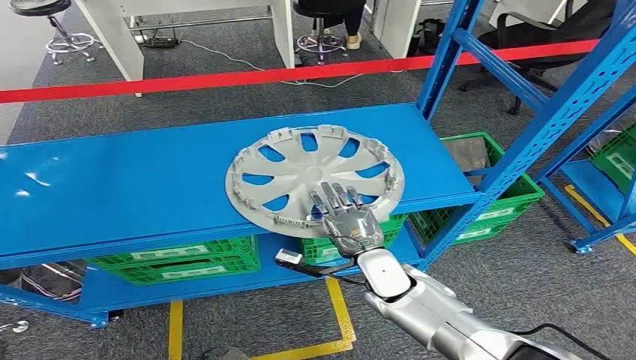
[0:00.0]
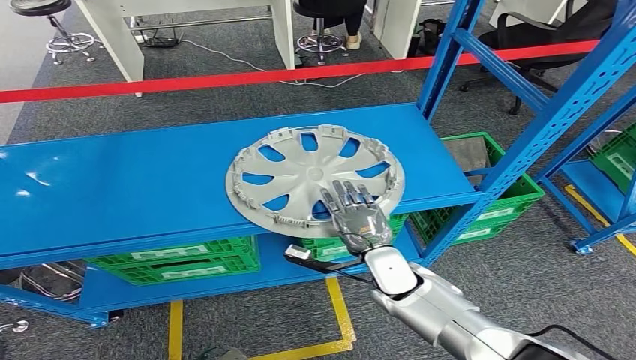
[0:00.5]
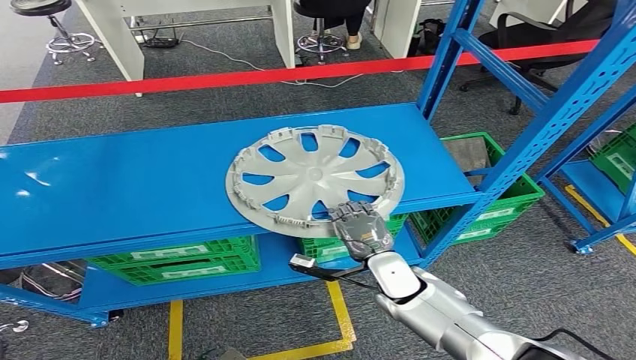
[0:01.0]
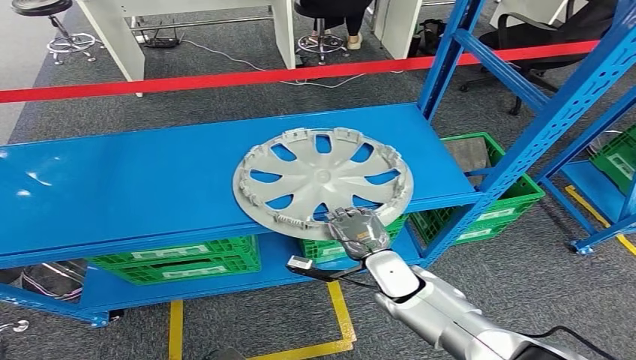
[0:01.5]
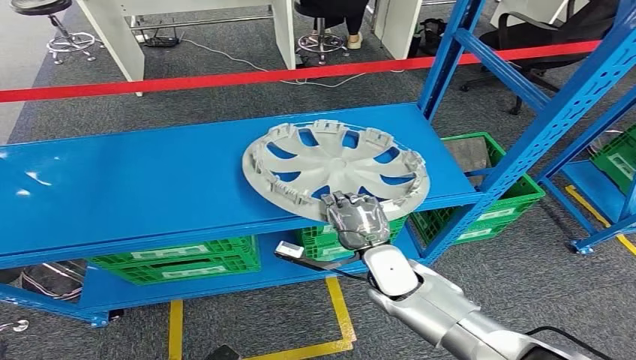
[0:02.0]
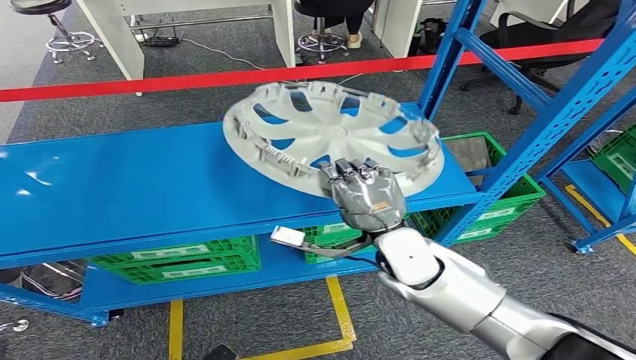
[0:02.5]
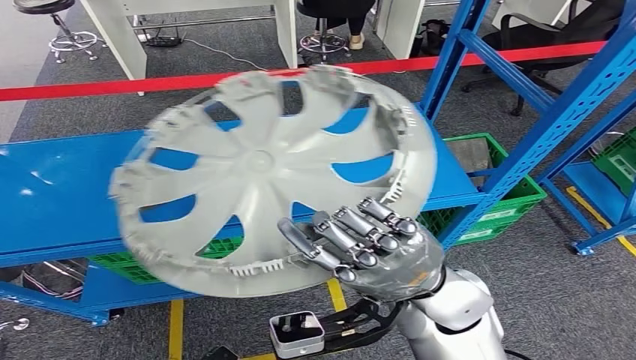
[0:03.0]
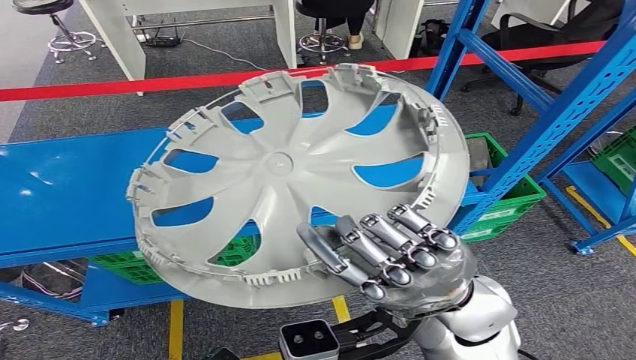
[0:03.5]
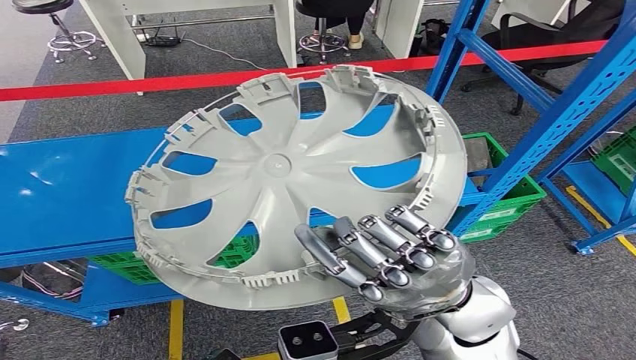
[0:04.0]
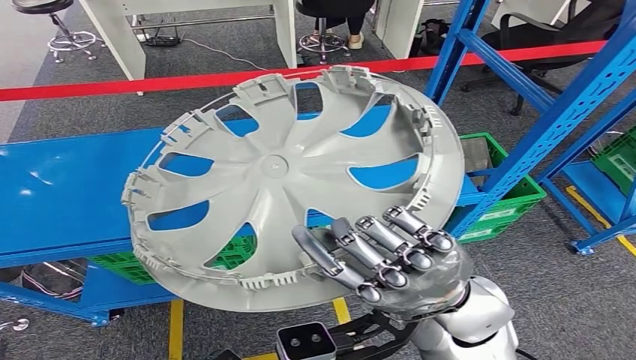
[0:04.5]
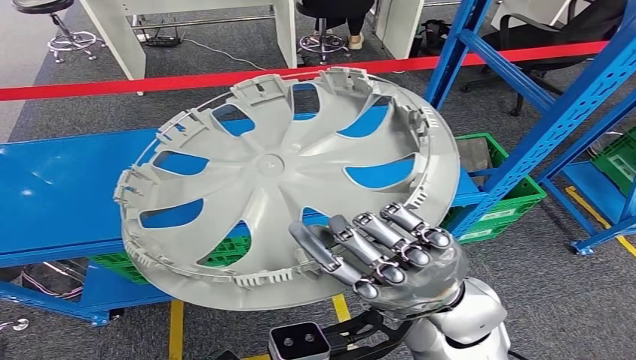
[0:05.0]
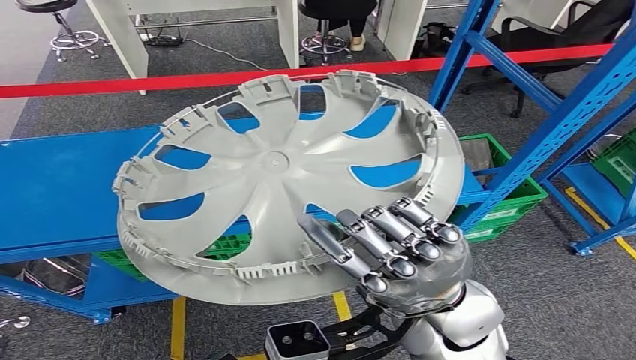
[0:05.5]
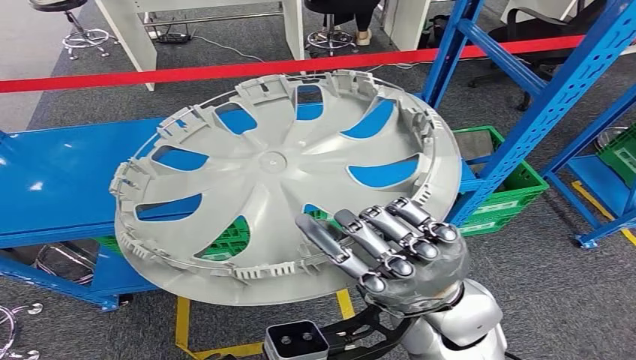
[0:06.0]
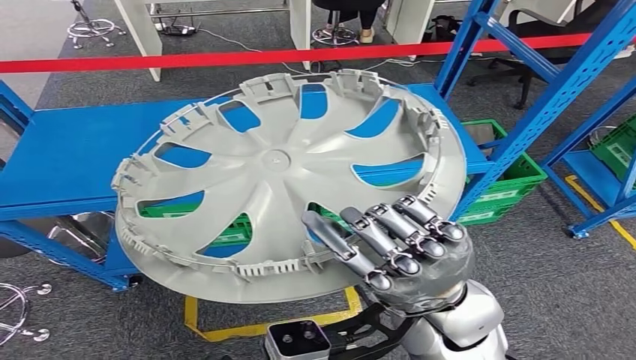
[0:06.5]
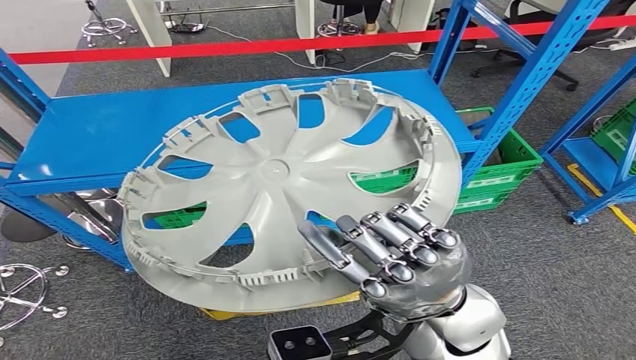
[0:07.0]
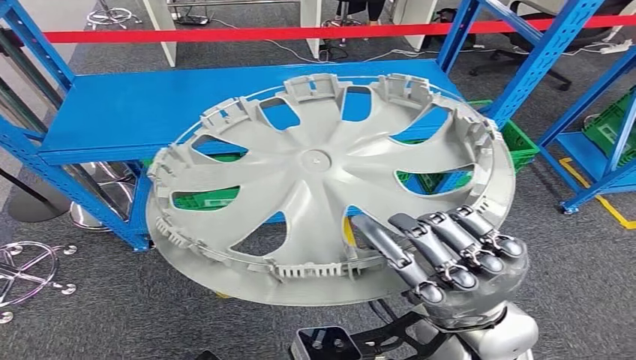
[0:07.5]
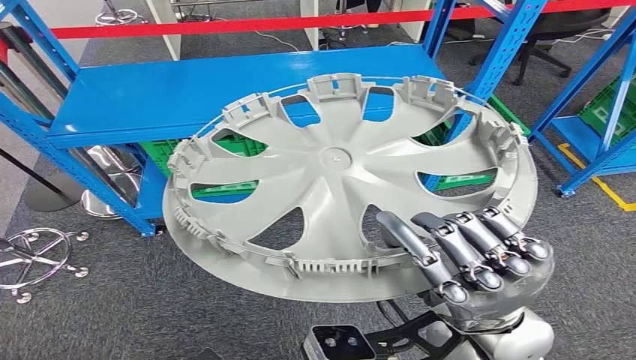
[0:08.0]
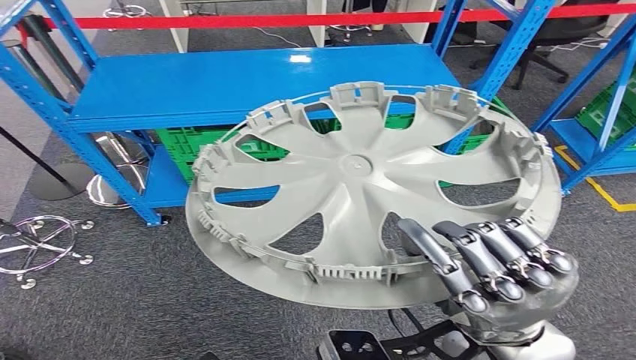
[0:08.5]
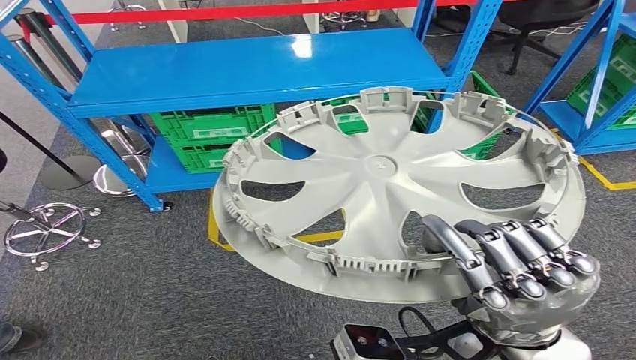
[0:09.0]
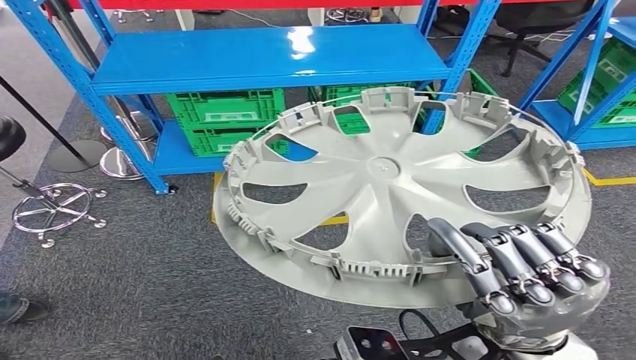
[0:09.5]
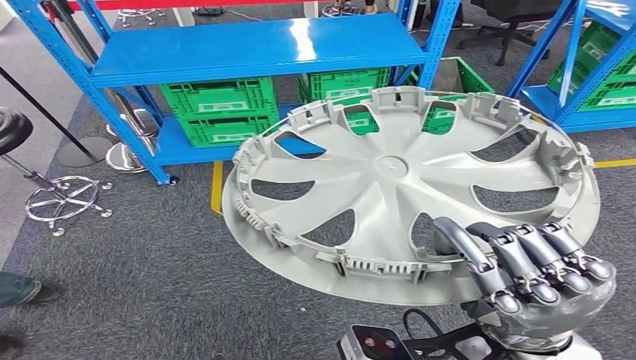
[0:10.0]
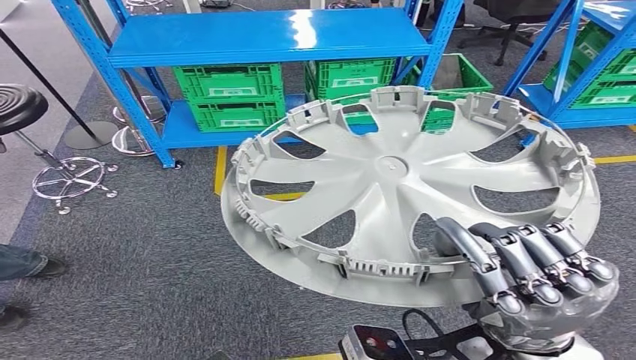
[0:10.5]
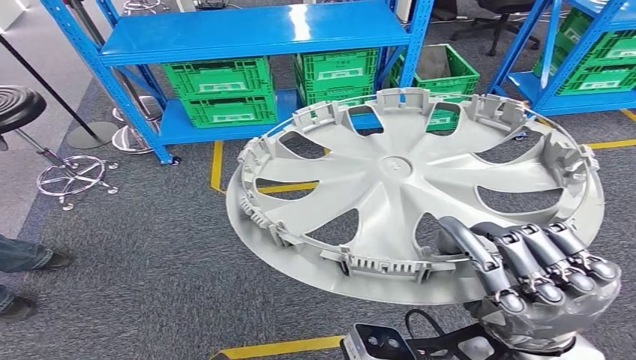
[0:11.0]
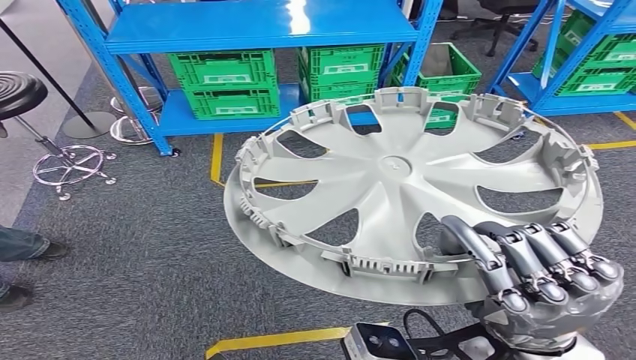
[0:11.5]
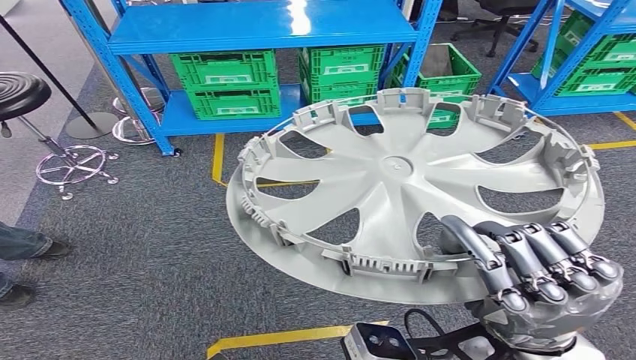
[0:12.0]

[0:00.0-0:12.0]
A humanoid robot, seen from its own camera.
Step, 0:00.0 to 0:03.5: Pick up the small component from the shelf.

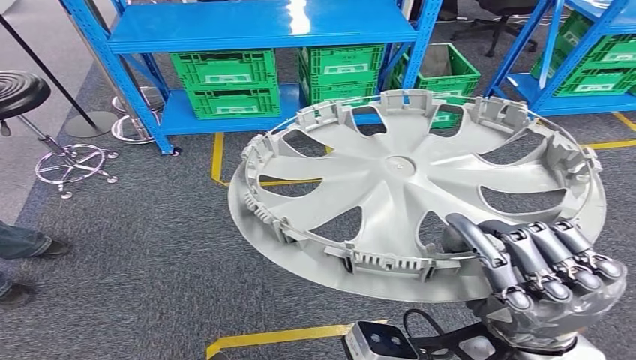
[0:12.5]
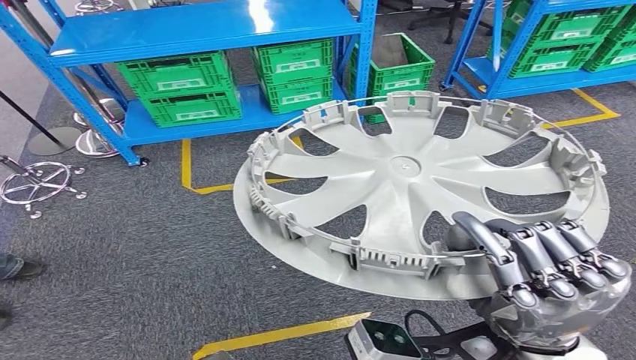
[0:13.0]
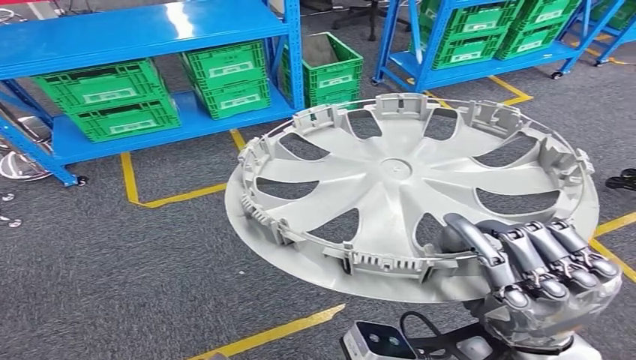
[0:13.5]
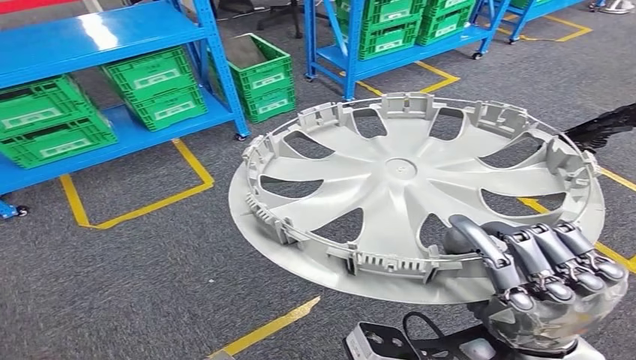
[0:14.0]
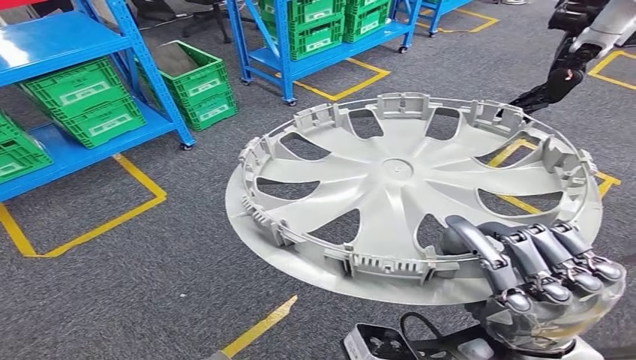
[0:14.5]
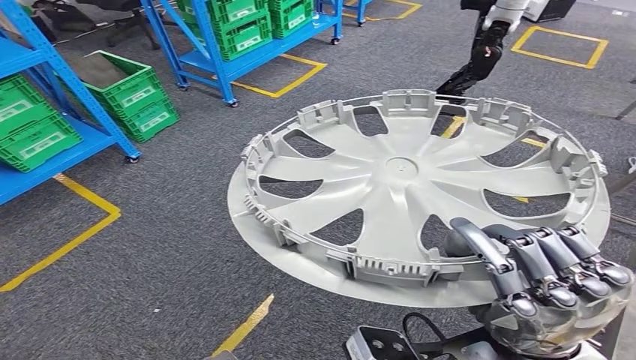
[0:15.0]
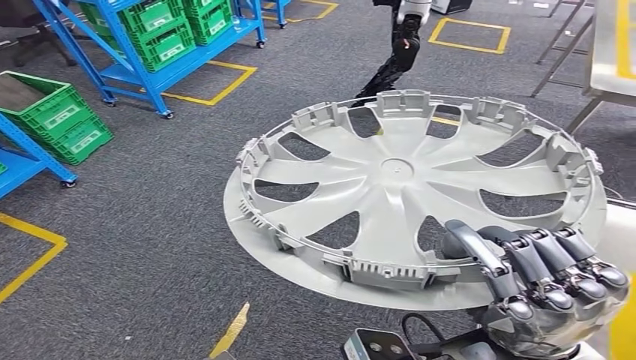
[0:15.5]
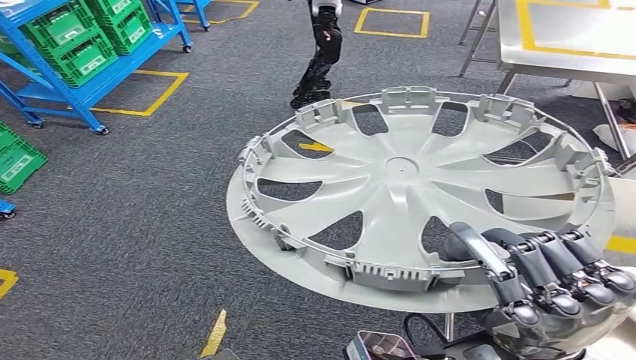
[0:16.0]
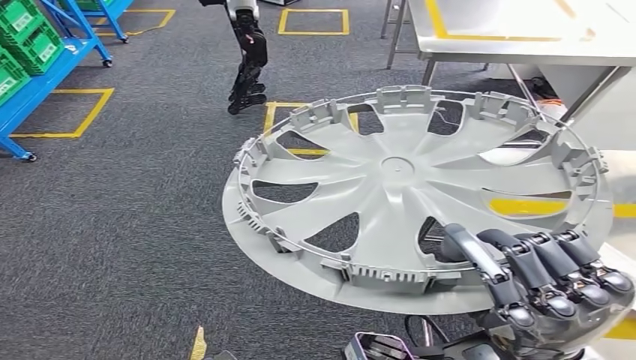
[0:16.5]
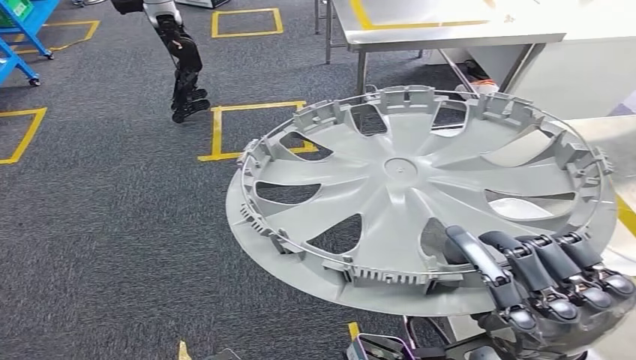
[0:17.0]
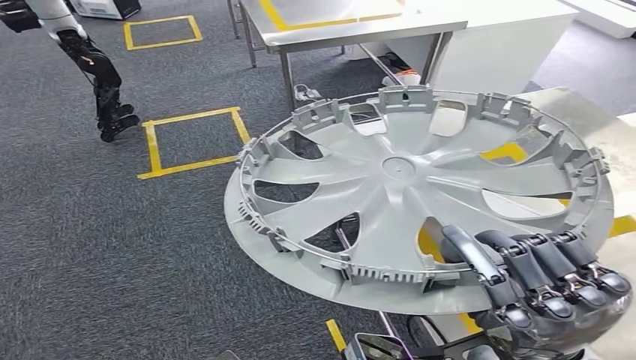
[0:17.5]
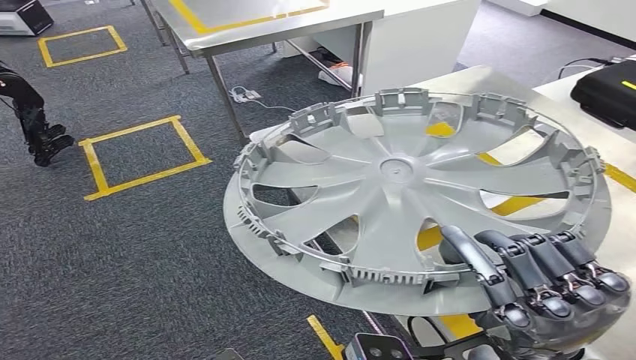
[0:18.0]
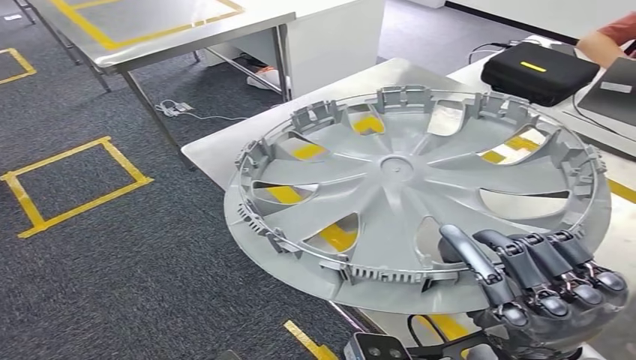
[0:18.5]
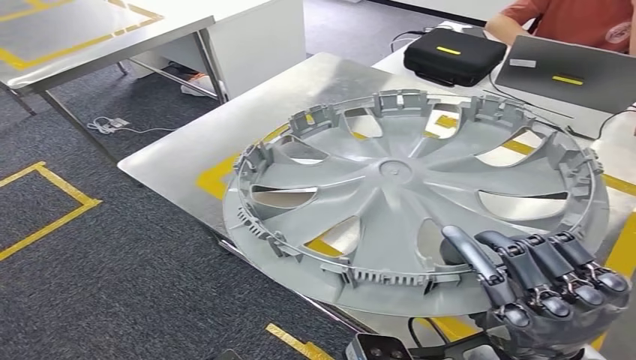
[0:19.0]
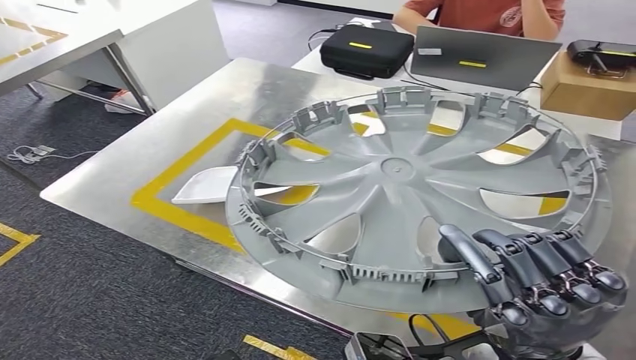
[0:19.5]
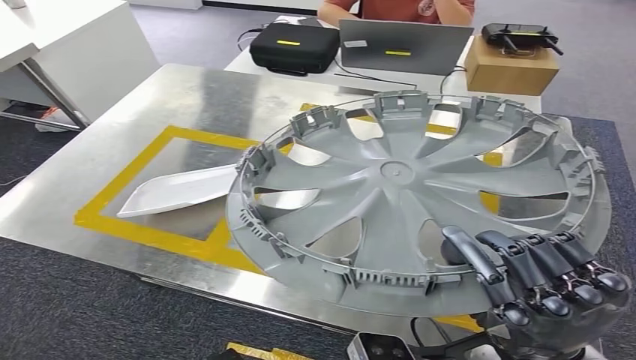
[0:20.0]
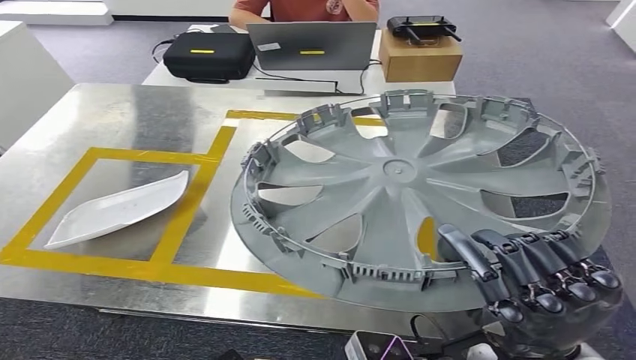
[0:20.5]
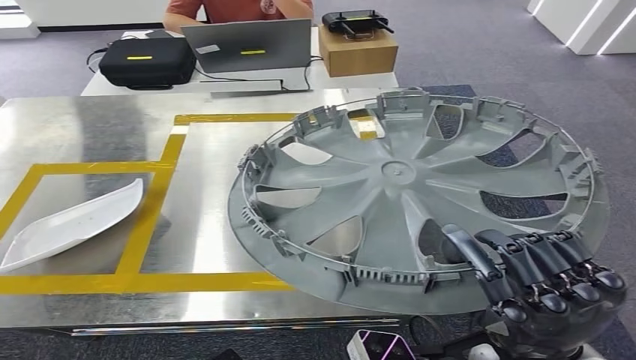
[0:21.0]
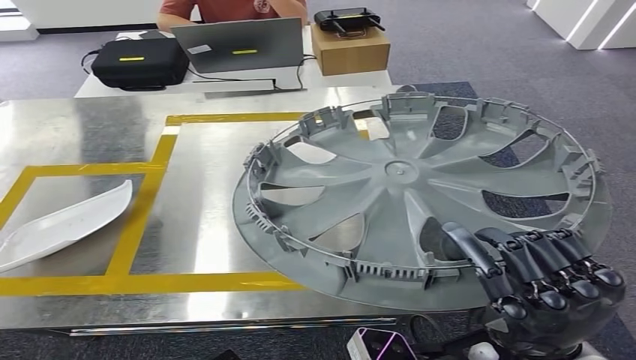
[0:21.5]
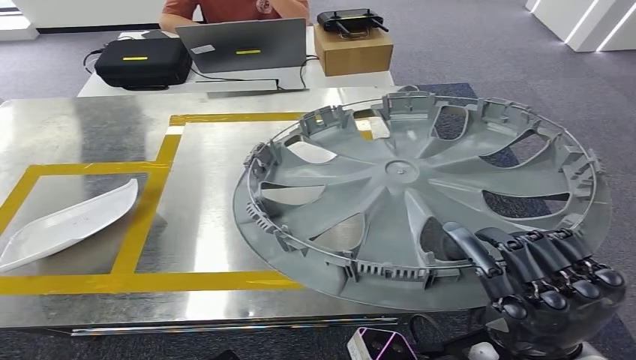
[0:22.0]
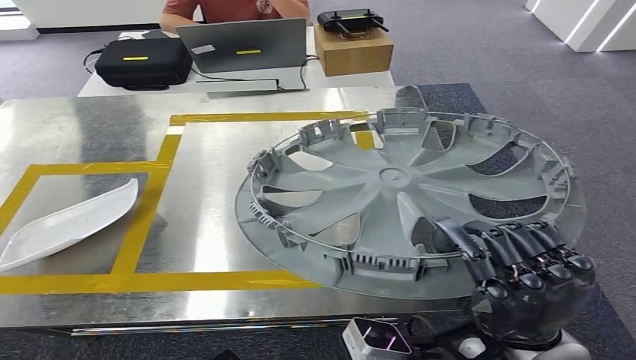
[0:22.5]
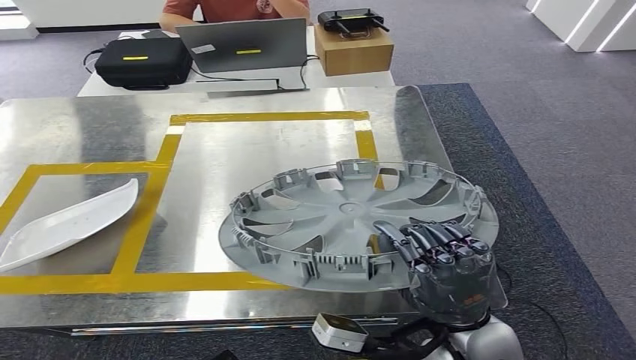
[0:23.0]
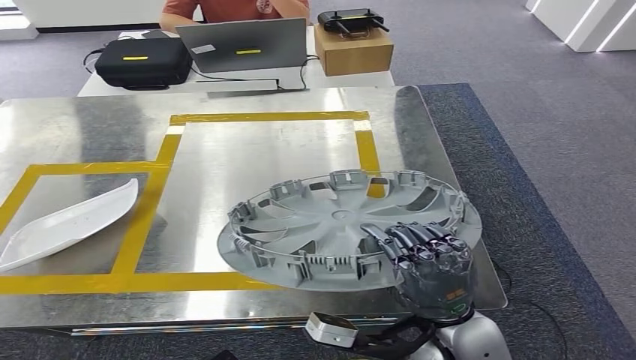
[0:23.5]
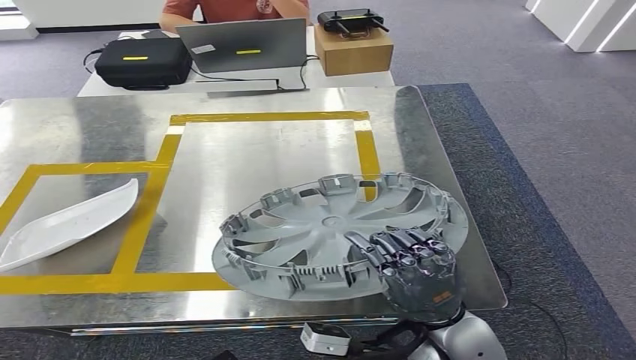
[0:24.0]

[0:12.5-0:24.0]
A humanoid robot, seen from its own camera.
Step, 0:12.5 to 0:20.5: Bring the small component to the front of the workbench.
